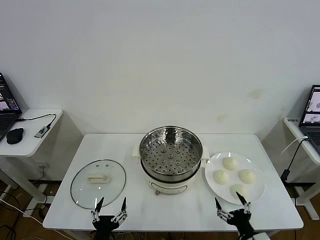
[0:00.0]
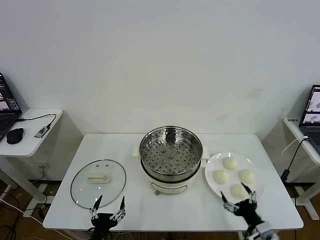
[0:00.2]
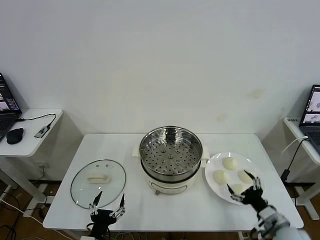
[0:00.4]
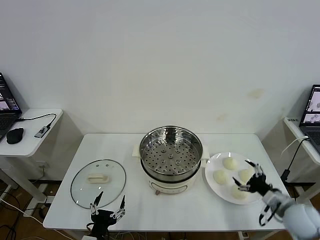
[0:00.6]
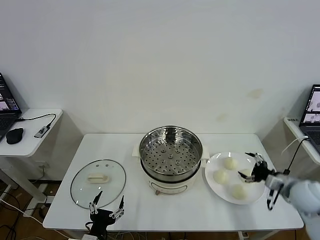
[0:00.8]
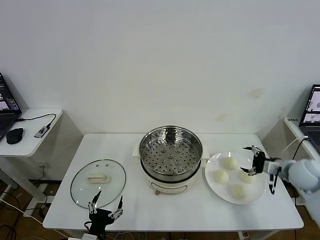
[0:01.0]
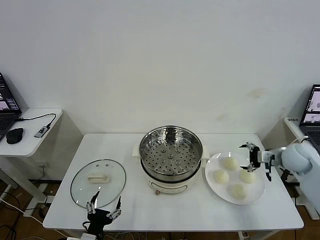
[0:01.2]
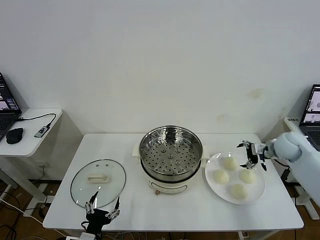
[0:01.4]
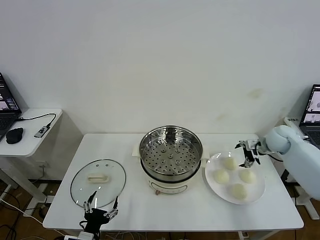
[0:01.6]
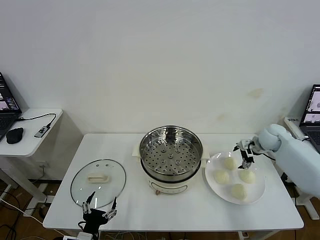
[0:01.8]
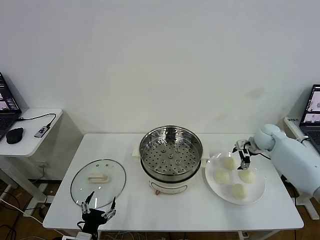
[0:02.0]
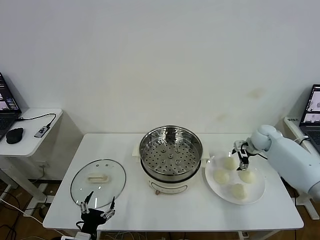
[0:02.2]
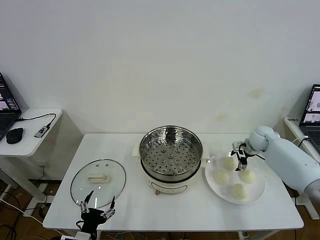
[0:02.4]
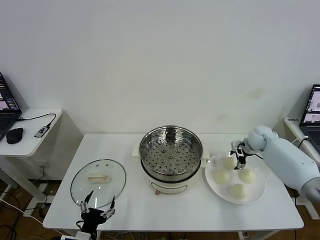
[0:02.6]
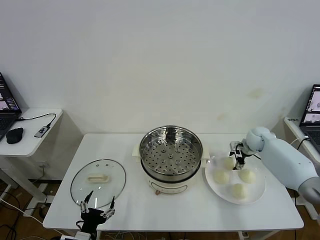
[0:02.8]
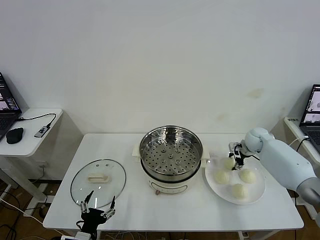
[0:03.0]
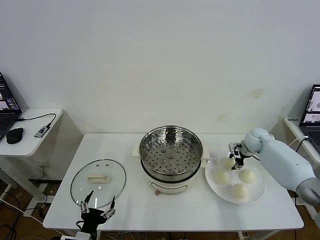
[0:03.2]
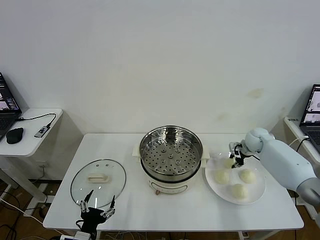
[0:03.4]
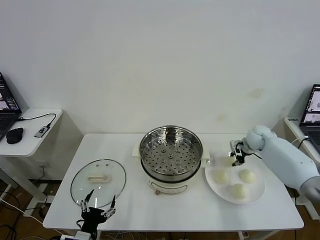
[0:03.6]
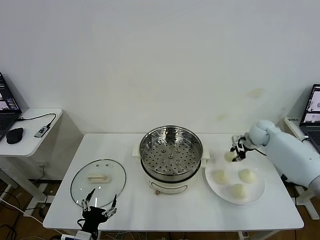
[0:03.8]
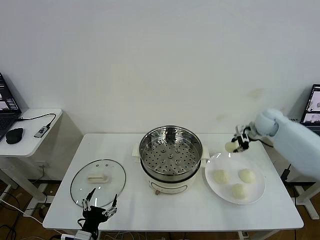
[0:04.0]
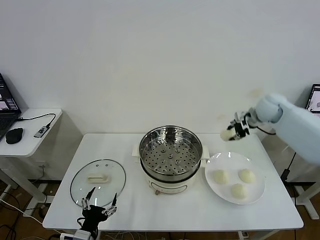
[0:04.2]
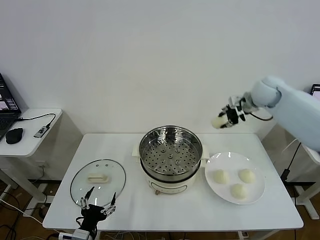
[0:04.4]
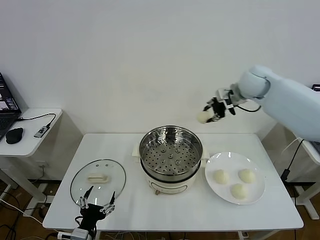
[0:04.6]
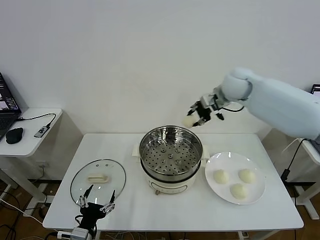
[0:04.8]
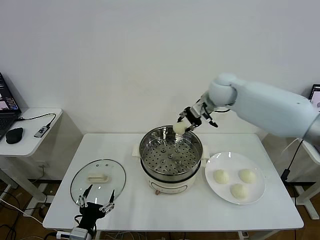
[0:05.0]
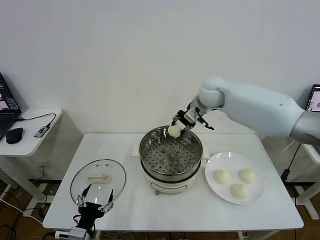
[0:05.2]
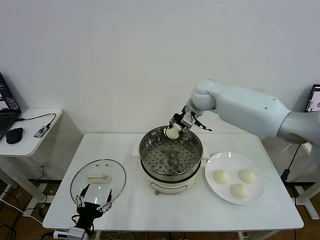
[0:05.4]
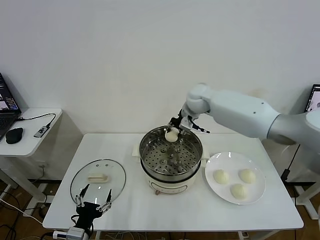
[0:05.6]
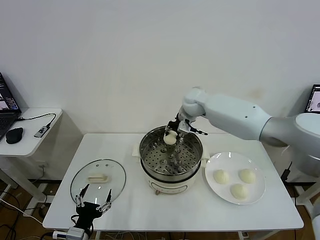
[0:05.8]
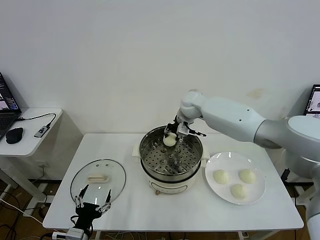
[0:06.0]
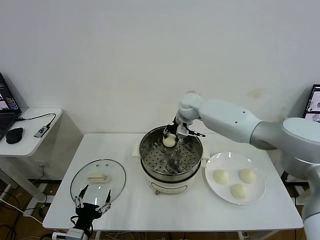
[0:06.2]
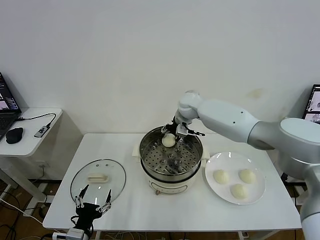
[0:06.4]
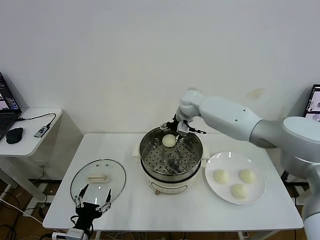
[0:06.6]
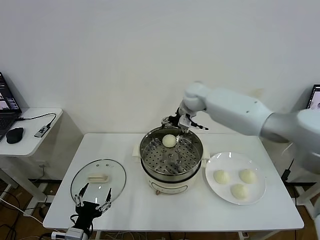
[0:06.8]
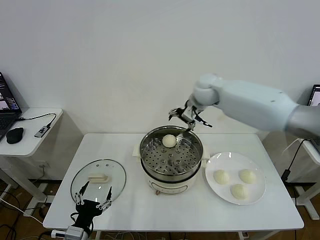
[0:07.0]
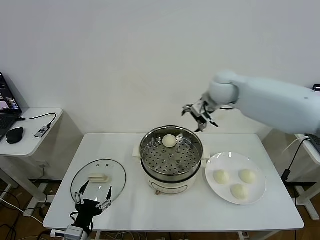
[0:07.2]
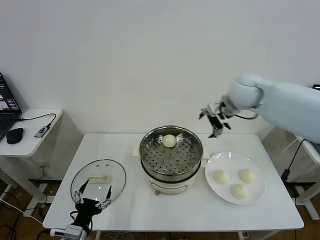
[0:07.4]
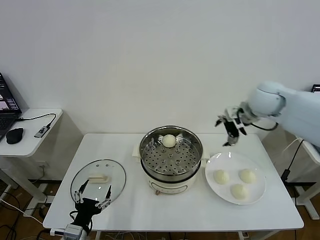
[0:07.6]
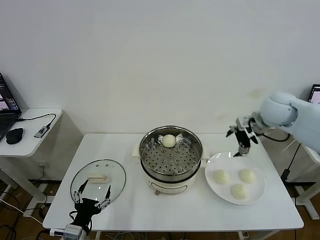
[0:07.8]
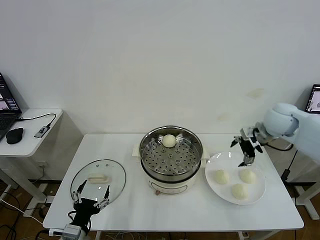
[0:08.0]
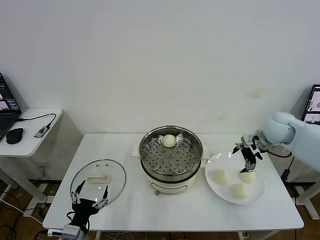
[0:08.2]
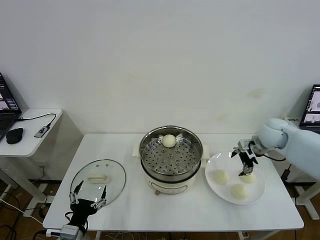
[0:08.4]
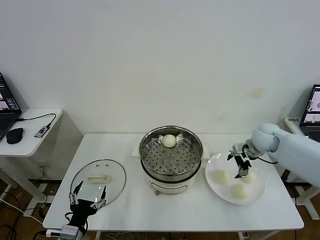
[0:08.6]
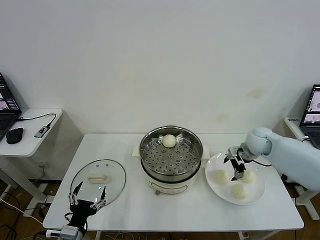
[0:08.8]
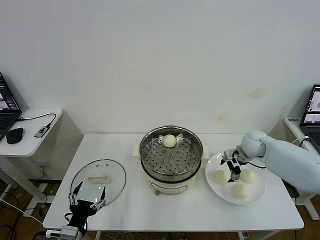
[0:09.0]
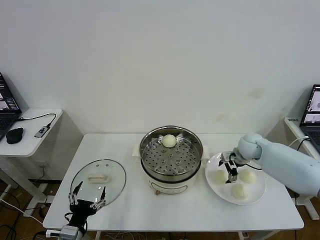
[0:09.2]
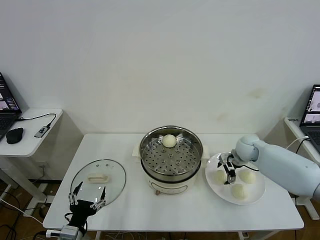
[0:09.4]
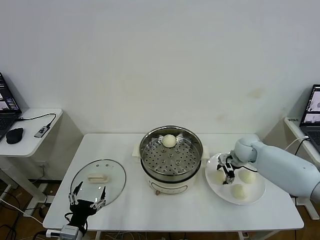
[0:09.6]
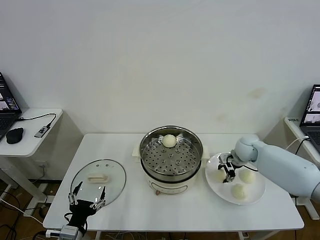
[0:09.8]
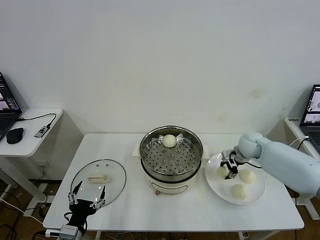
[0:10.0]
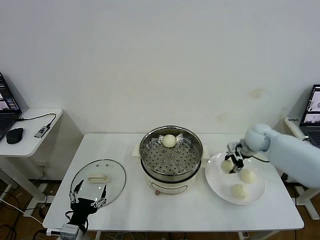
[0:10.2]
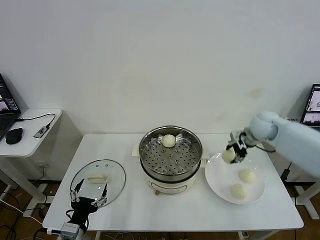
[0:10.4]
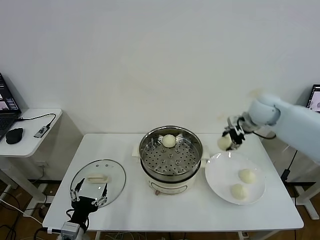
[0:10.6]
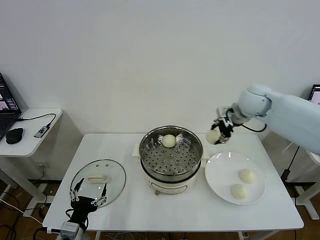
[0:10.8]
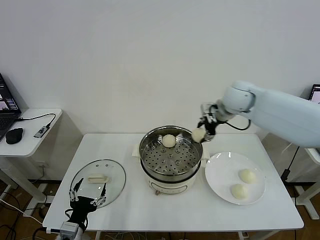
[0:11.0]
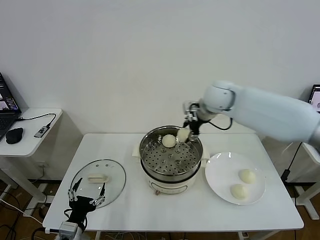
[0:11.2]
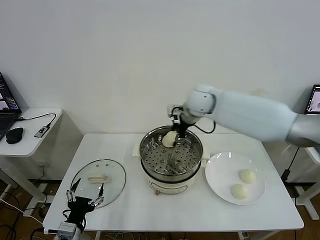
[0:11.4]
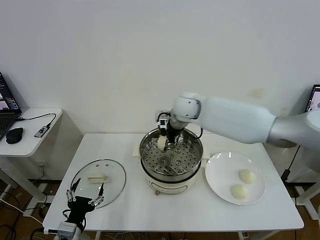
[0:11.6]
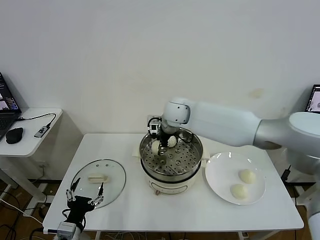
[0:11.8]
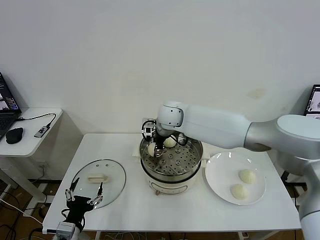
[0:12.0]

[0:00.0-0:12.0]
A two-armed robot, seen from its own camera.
Task of the whole recording: take steamed baozi put them in steamer then cover it.
Step, 0:00.0 to 0:03.0: Grasp the baozi in the plate with right gripper.
Step, 0:03.2 to 0:06.4: Place the baozi on the steamer with right gripper.
Step, 0:06.8 to 0:09.8: Grasp the baozi in the plate with right gripper.
0:01.6 to 0:03.0: The right gripper is displaced downward by some 5 cm, and closes.
0:03.0 to 0:04.4: The right gripper moves upward, some 25 cm, and closes up.
0:04.4 to 0:06.0: The right gripper moves to the left and downward, roughly 20 cm.
0:06.0 to 0:07.6: The right gripper goes some 25 cm to the right and backward, and opens.
0:07.6 to 0:09.0: The right gripper shifts approximately 20 cm downward.
0:09.0 to 0:10.4: The right gripper is displaced upward by roughly 15 cm, and closes its fingers.
0:10.4 to 0:12.0: The right gripper shifts about 30 cm to the left.

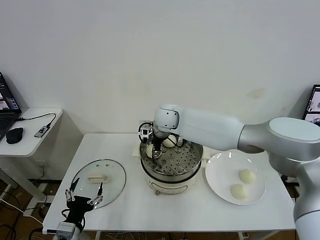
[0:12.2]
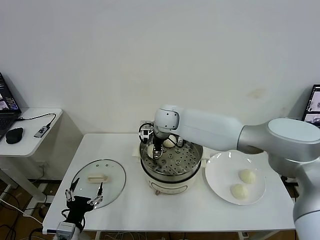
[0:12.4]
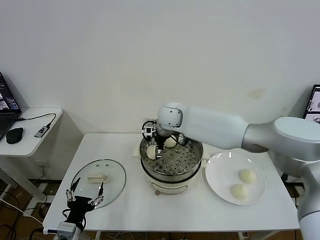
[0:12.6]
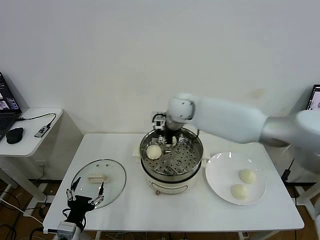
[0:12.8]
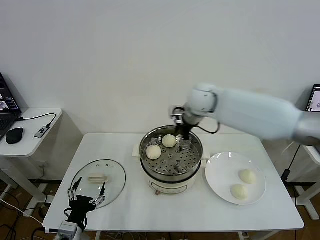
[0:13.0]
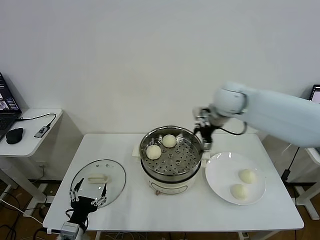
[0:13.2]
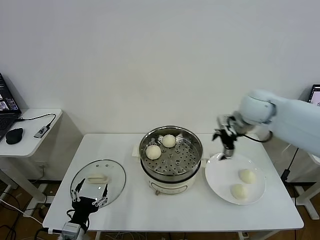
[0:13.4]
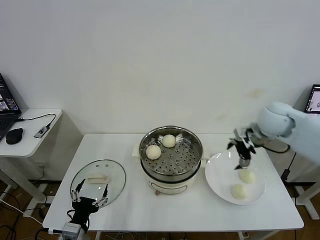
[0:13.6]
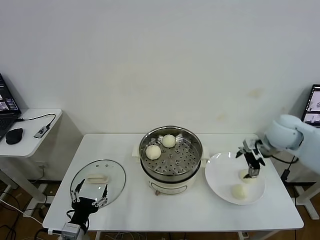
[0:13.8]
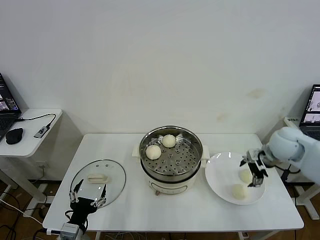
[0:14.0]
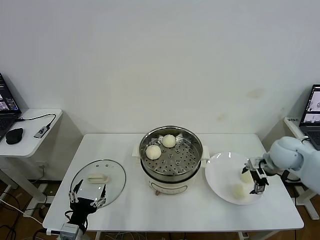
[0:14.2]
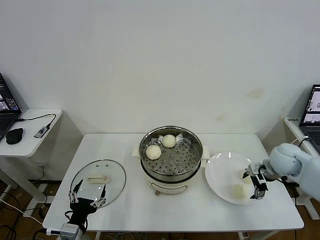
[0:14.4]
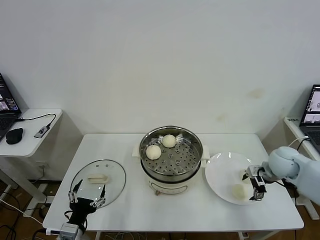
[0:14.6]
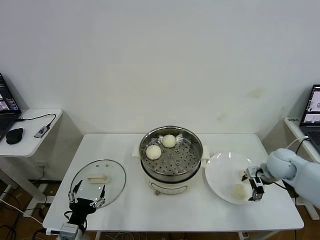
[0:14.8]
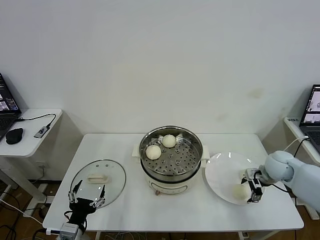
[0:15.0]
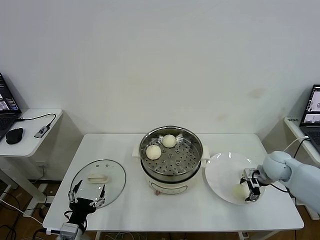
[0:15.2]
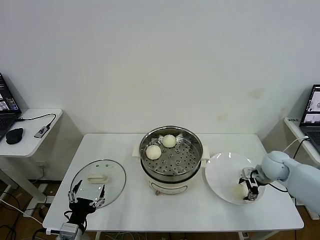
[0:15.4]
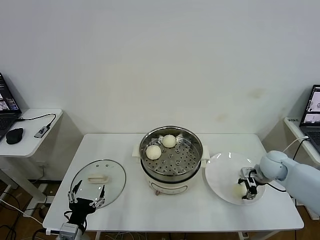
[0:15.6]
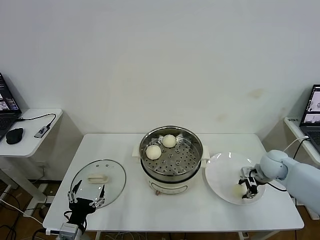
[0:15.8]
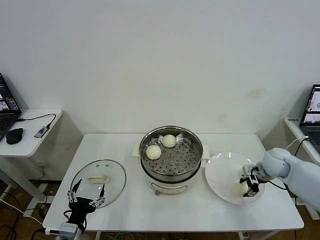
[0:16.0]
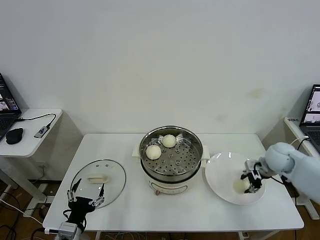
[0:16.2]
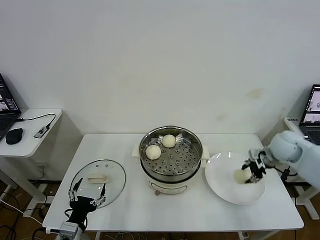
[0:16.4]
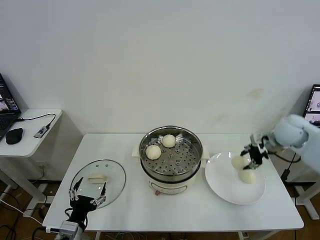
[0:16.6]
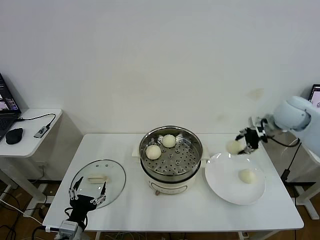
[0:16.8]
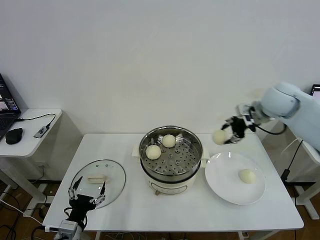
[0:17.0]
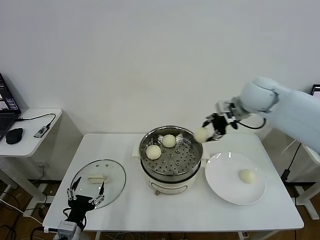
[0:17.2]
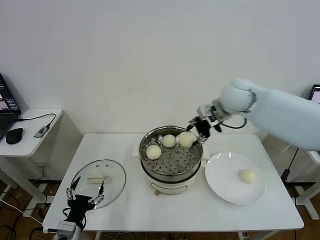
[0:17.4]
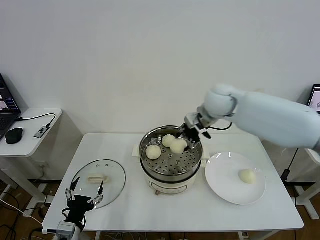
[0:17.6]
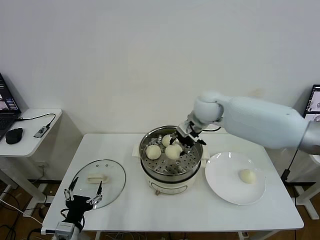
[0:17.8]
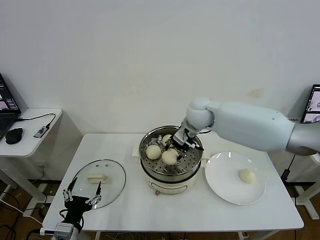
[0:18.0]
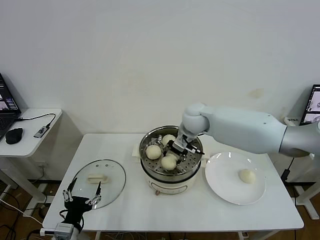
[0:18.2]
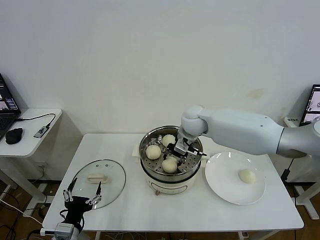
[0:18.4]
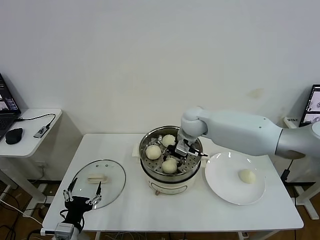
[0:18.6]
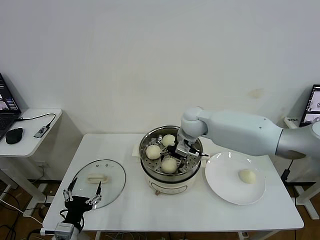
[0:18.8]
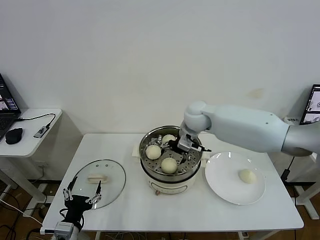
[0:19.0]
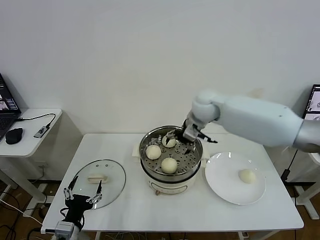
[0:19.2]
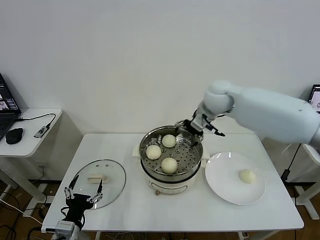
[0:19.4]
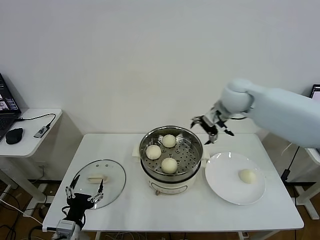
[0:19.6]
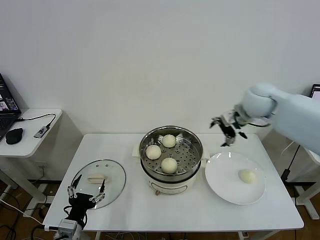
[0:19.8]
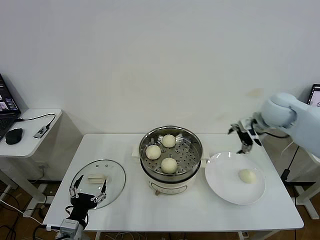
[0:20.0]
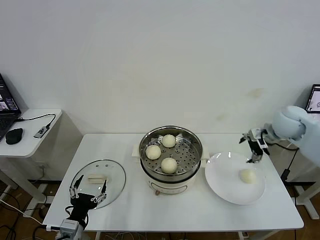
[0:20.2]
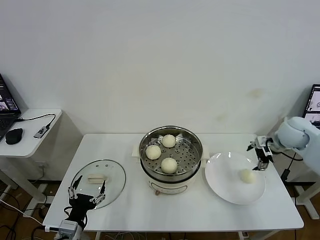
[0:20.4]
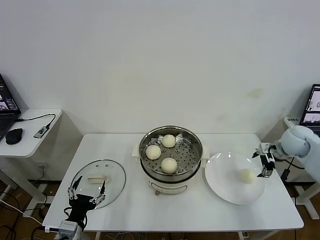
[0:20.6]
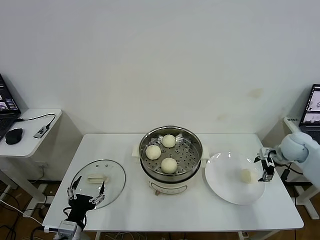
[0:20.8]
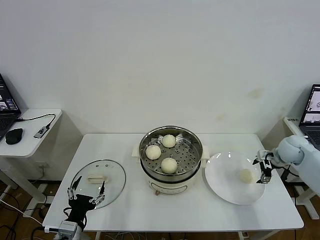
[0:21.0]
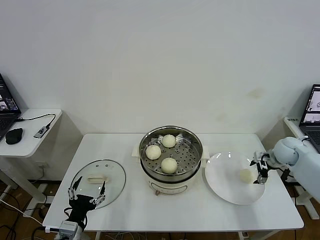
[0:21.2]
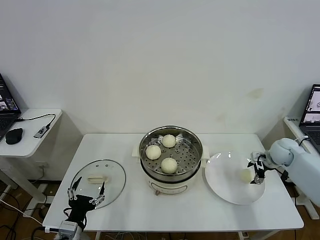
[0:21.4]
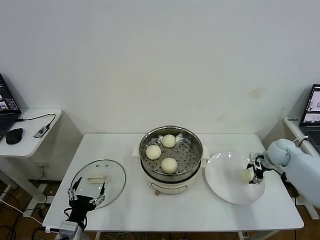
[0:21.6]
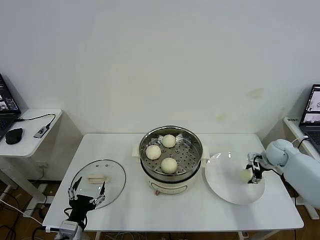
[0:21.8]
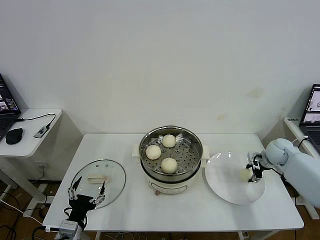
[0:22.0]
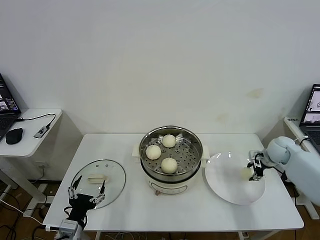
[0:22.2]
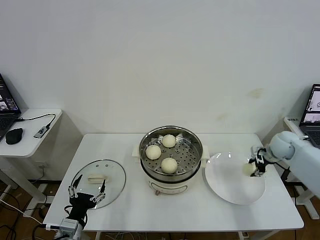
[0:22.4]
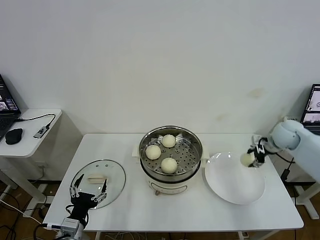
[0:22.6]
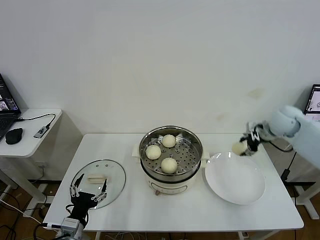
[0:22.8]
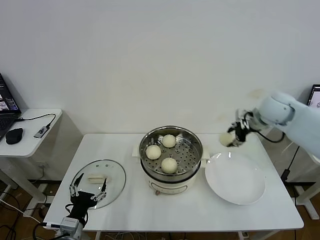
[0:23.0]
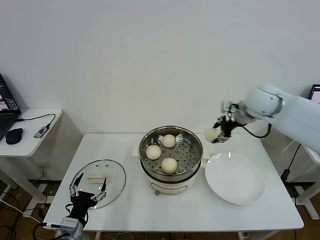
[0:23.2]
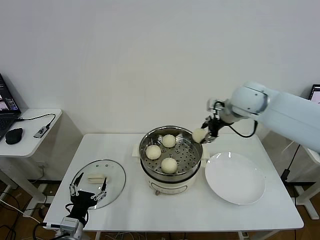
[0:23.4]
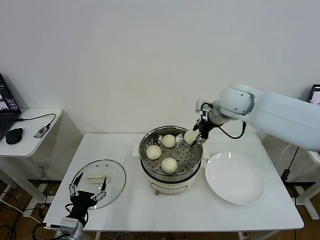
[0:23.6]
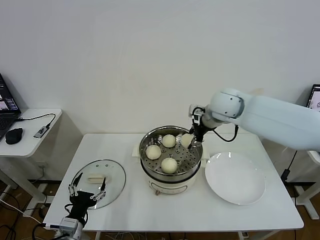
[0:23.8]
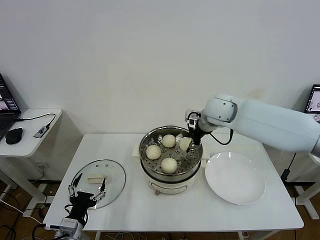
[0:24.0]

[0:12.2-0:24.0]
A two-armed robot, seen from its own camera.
Task of the whole recording: take steamed baozi put them in steamer then cover it.
Step, 0:12.8 to 0:15.6: Grasp the baozi in the plate with right gripper.
Step, 0:15.8 to 0:19.0: Place the baozi on the steamer with right gripper.
Step, 0:19.4 to 0:21.8: Grasp the baozi in the plate with right gripper.
0:12.2 to 0:13.6: The right gripper moves to the right, approximately 35 cm, and opens up.
0:13.6 to 0:15.2: The right gripper heads downward, covering some 15 cm.
0:15.2 to 0:16.6: The right gripper moves upward, approximately 15 cm, and closes its fingers.
0:16.6 to 0:18.2: The right gripper travels to the left by about 30 cm.
0:18.2 to 0:19.6: The right gripper is displaced to the right and upward by about 15 cm, and opens.
0:19.6 to 0:21.0: The right gripper goes approximately 30 cm to the right and downward.
0:21.0 to 0:22.6: The right gripper goes some 5 cm upward, and closes up.
0:22.6 to 0:24.0: The right gripper heads to the left, covering some 25 cm.
